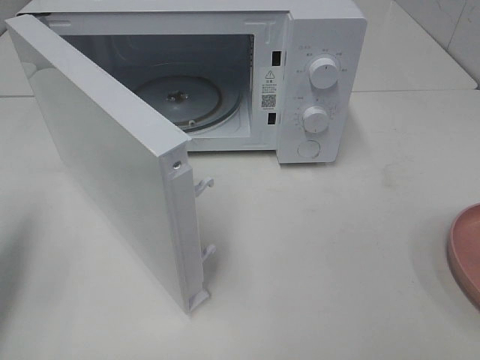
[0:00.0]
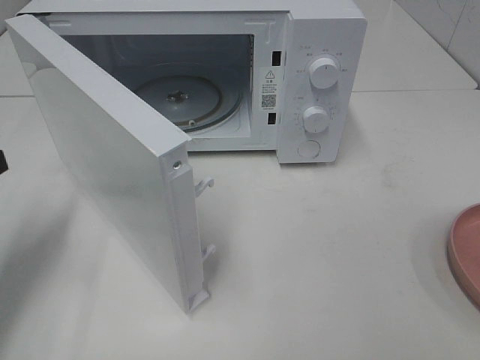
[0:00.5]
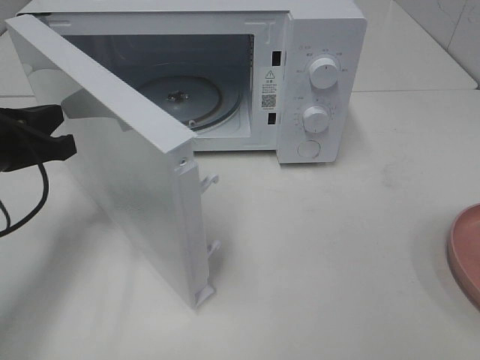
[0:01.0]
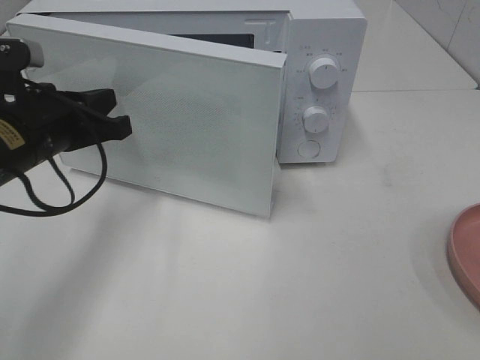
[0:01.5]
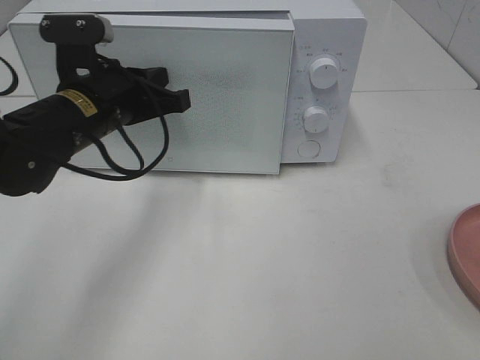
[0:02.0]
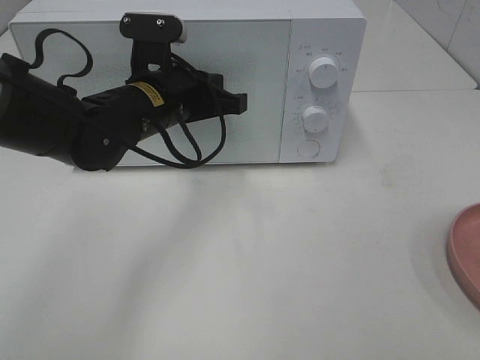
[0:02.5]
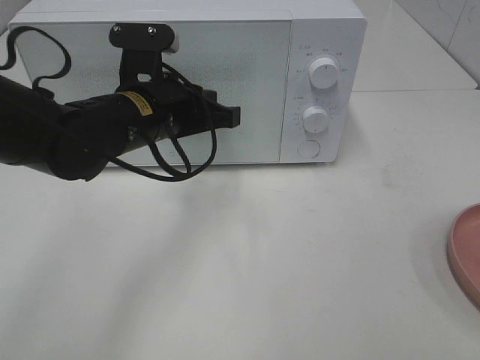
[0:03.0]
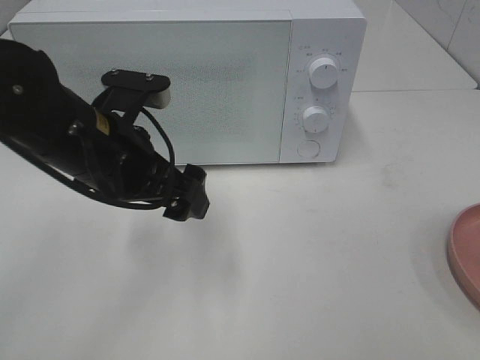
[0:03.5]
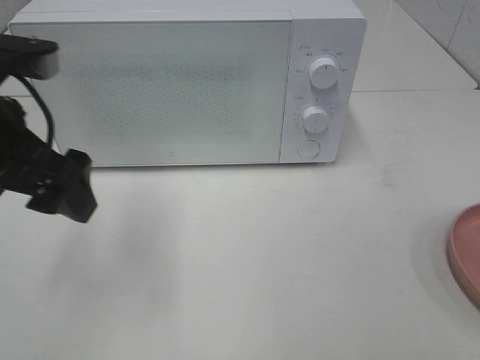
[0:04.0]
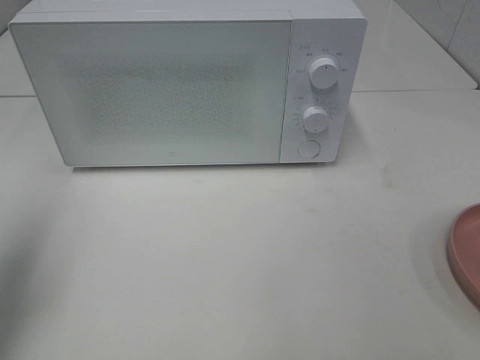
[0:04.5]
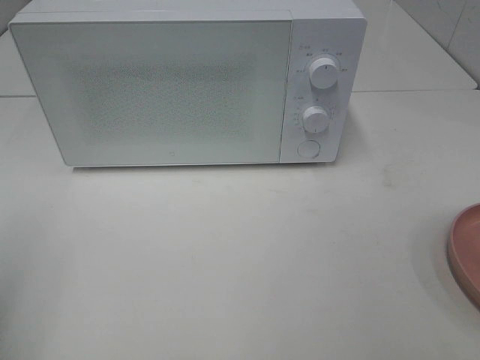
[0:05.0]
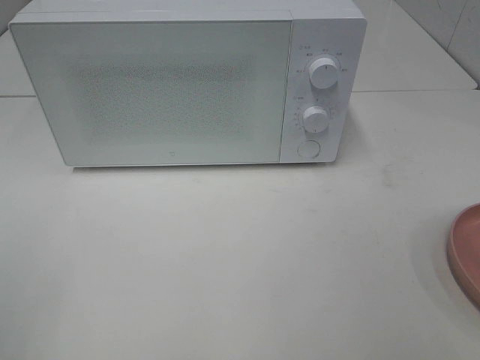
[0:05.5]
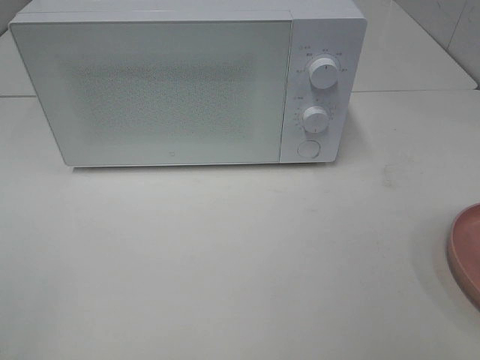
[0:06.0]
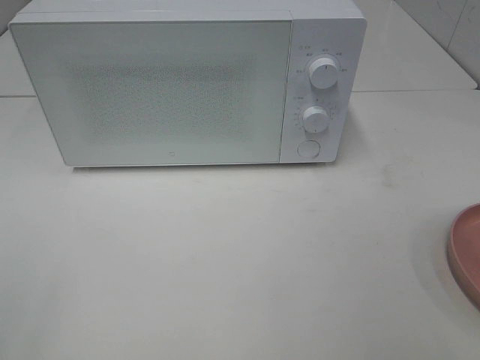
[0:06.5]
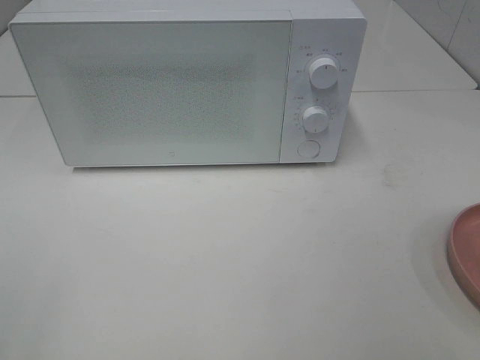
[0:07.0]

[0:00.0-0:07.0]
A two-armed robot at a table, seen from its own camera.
Task of the whole recording: Heat the burger.
Step, 0.0 to 2.5 s: Left hand: close the microwave door.
0.0 to 2.0 s: The left gripper travels to the right and forward by about 25 cm.
2.0 to 3.5 s: The left gripper is displaced backward by approximately 5 cm, and opens up.
3.5 to 5.0 s: The left gripper is displaced to the left and backward by some 25 cm.

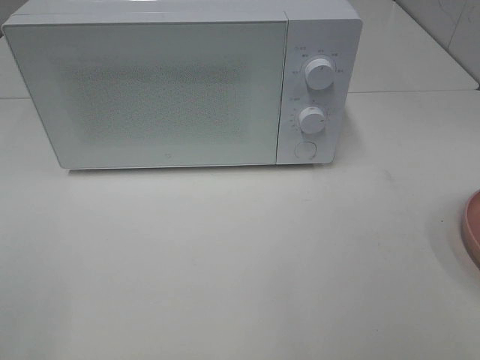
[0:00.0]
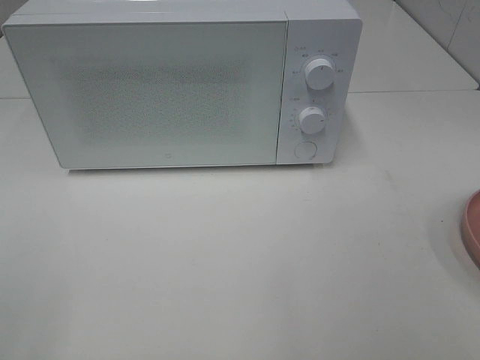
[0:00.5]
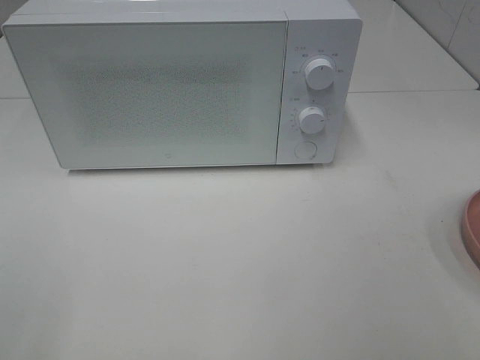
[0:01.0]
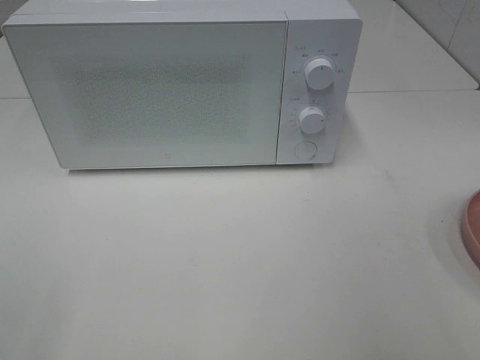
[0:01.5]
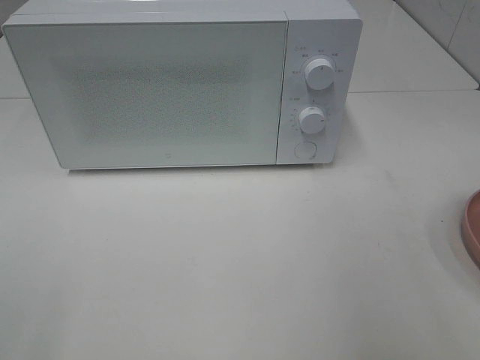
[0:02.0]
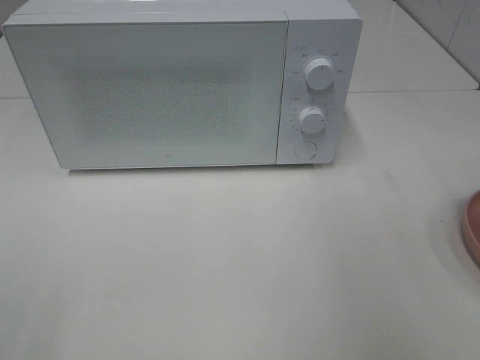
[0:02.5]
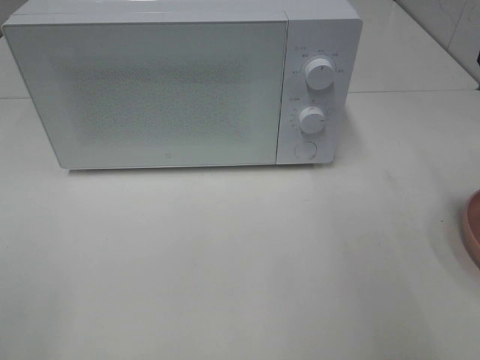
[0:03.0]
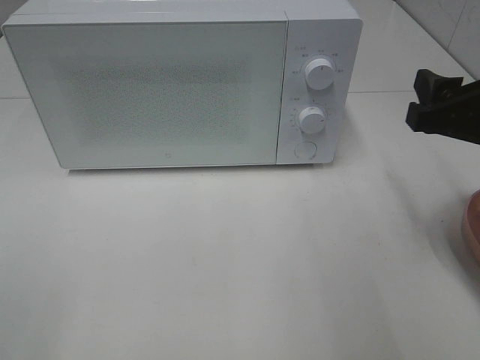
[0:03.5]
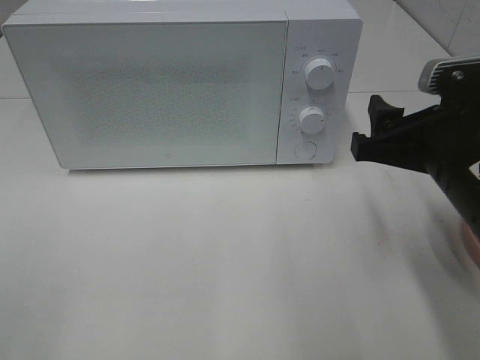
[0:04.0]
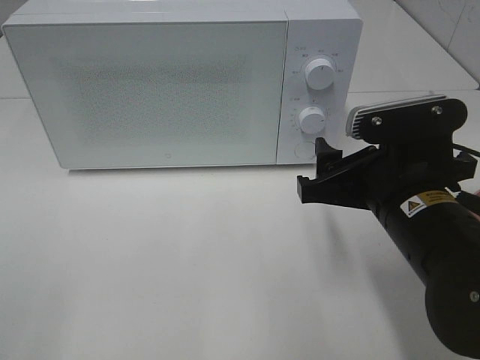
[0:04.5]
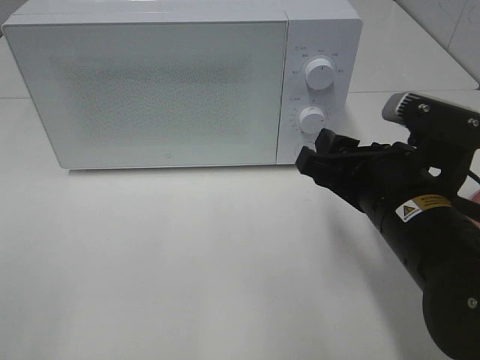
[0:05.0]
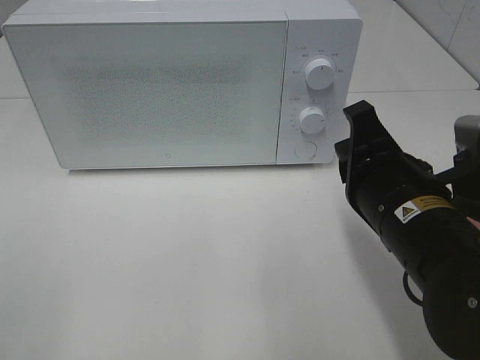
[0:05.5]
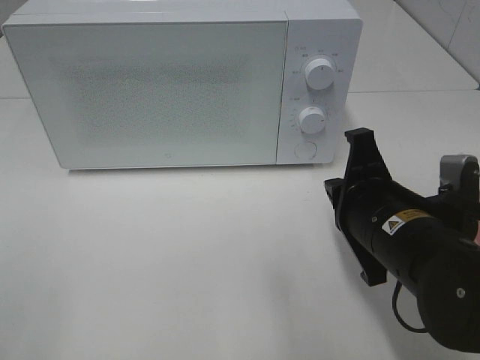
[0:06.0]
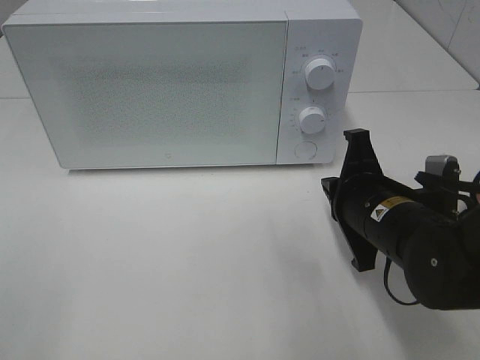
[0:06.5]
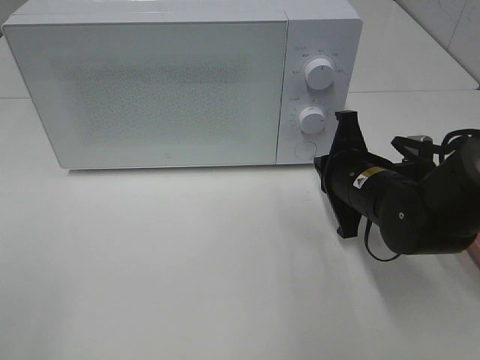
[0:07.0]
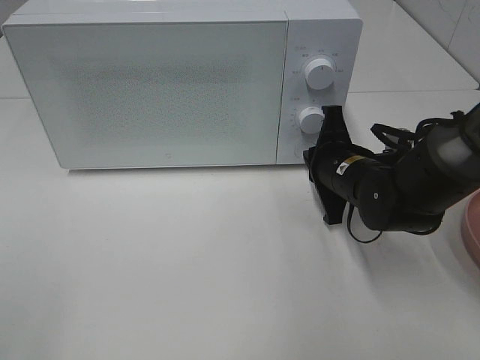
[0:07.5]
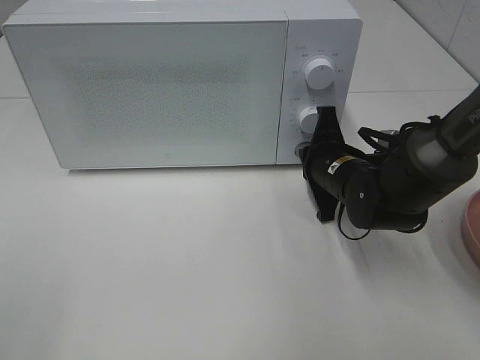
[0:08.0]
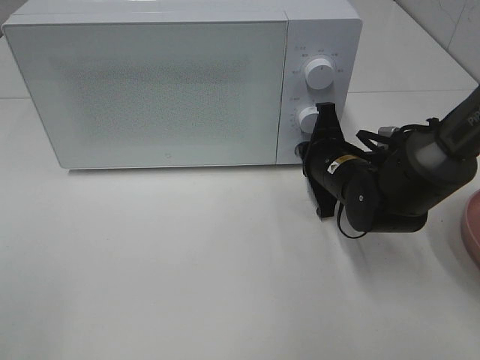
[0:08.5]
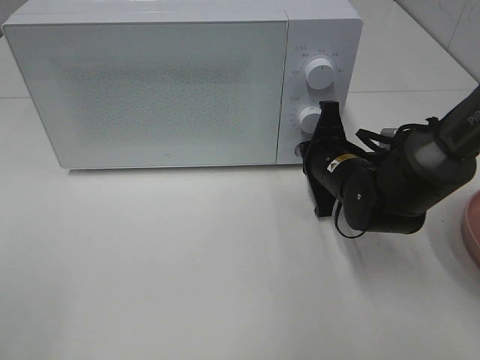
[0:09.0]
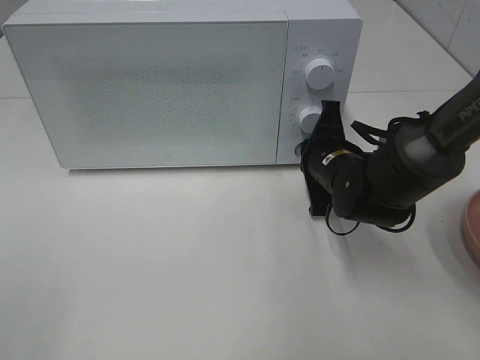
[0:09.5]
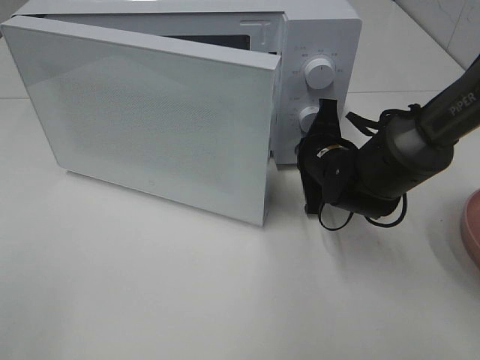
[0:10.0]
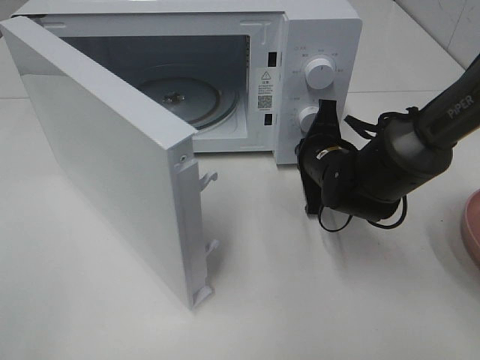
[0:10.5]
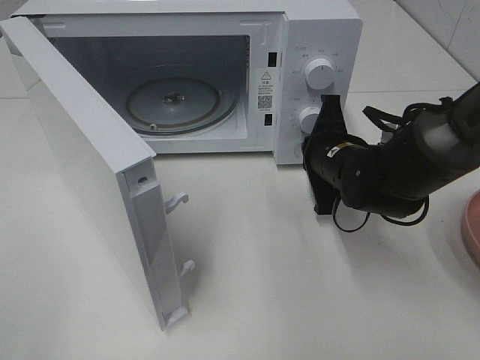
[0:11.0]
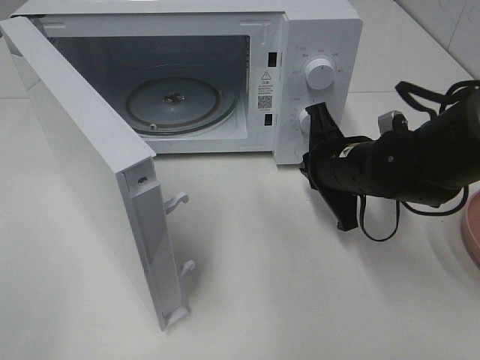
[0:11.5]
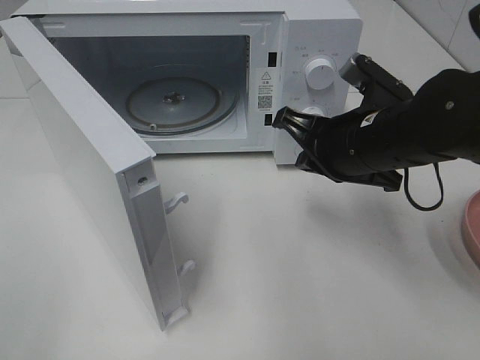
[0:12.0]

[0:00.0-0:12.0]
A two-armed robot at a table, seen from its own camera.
Task of the whole recording: Heat the burger.
Step, 0.0 to 11.0 s: Right hand: press the switch.
2.0 to 4.0 s: The right gripper is displaced downward, to the left and forward by about 15 cm.
4.0 to 6.0 s: The right gripper moves downward, some 5 cm, and closes its fingers.
6.0 to 8.0 s: The right gripper travels forward and downward by roughly 15 cm.
8.0 to 10.0 s: There are only small adjustments of the grippers.
10.0 to 12.0 s: The right gripper moves upward and backward, about 10 cm.

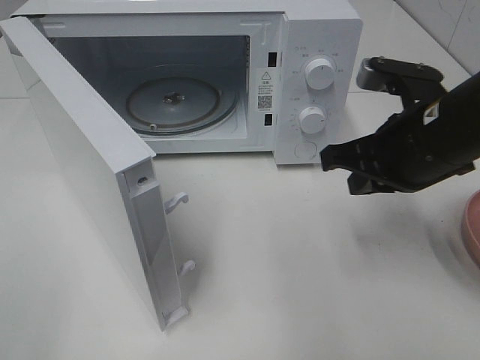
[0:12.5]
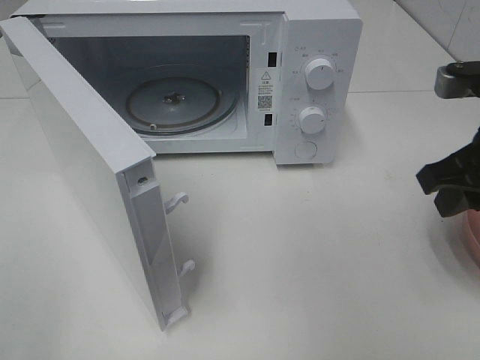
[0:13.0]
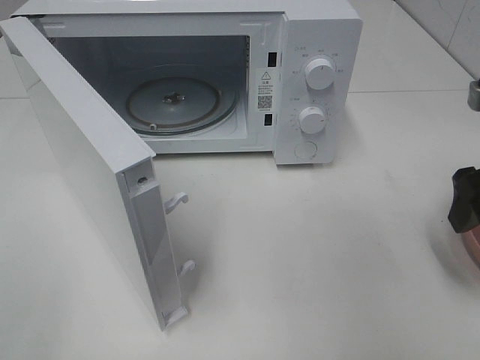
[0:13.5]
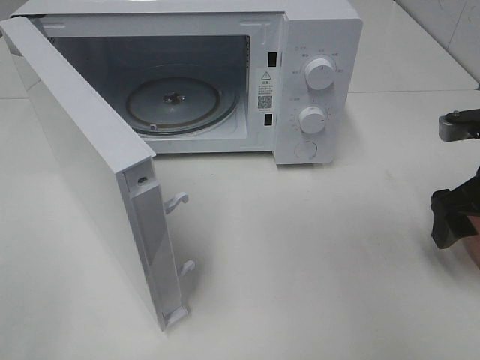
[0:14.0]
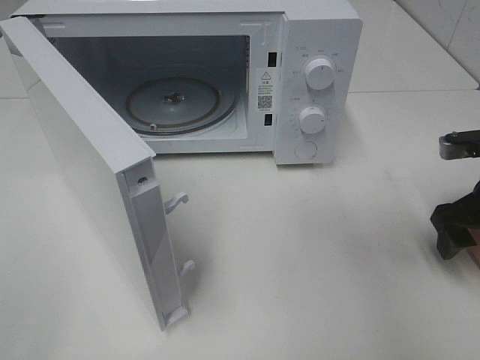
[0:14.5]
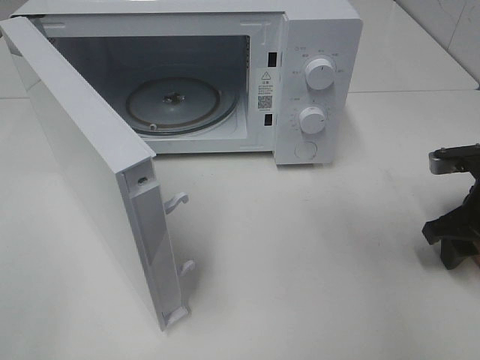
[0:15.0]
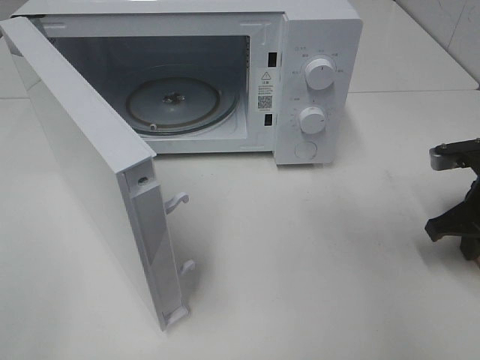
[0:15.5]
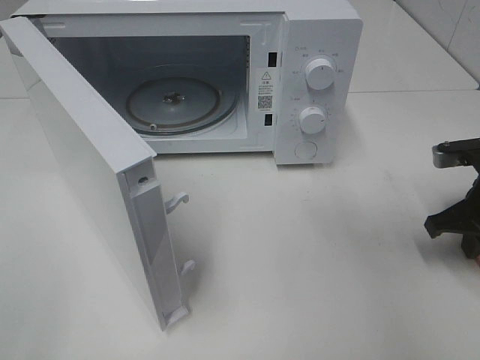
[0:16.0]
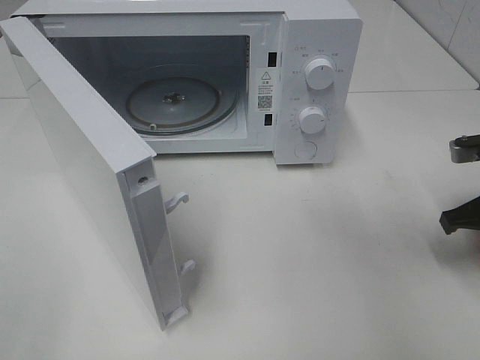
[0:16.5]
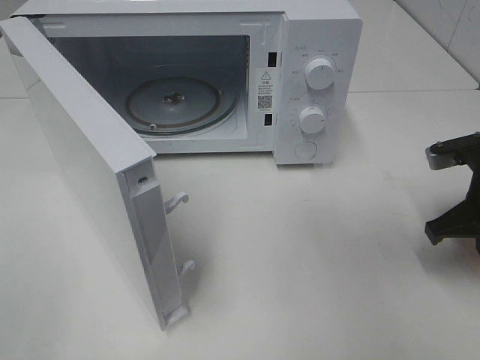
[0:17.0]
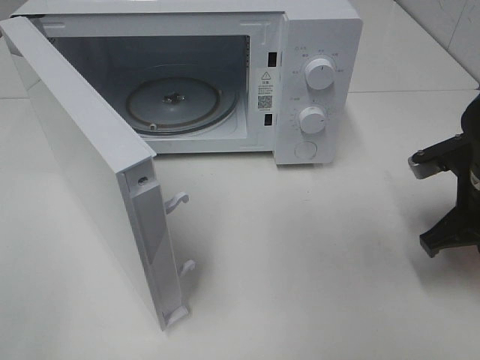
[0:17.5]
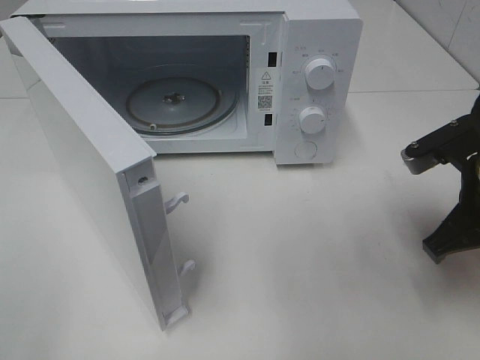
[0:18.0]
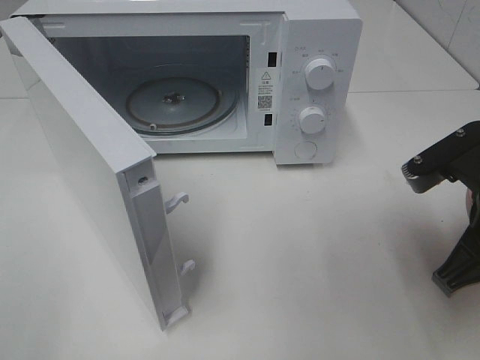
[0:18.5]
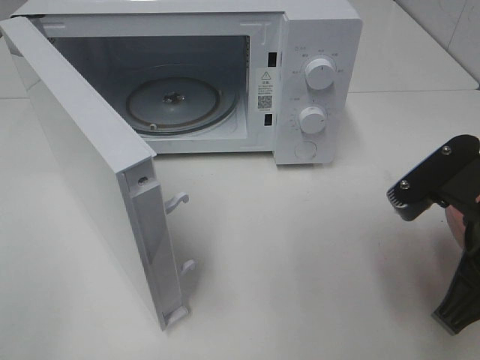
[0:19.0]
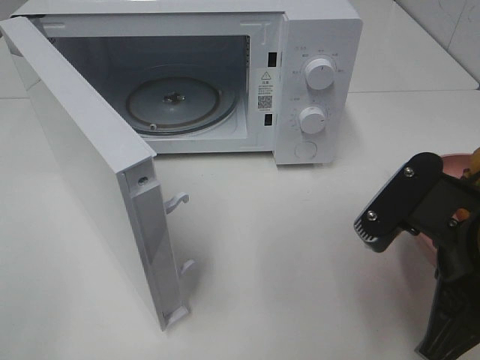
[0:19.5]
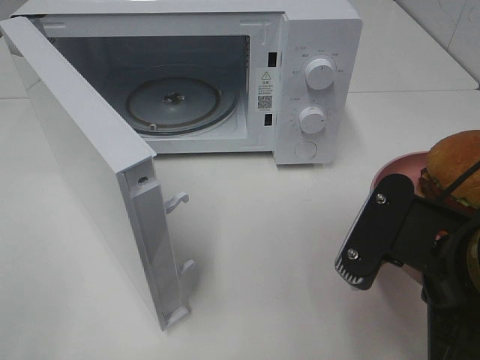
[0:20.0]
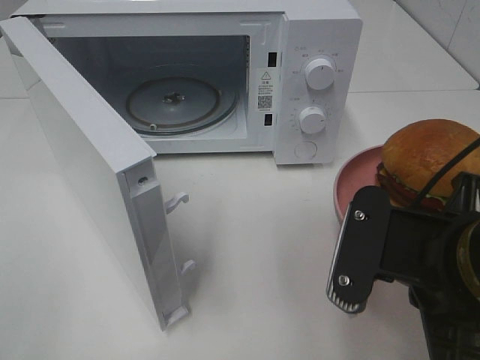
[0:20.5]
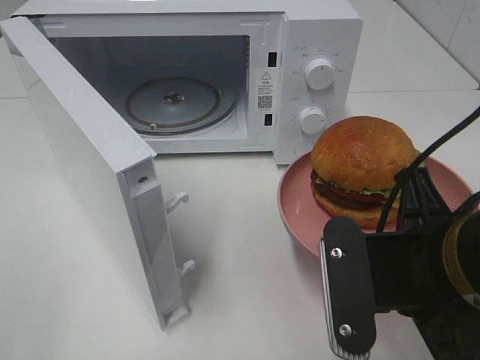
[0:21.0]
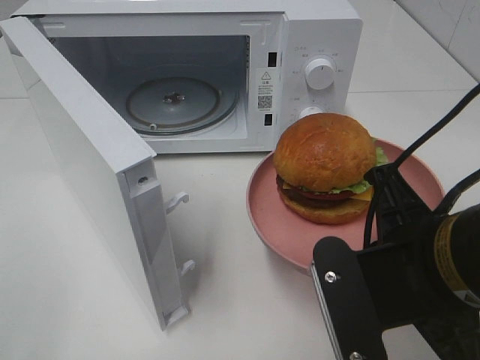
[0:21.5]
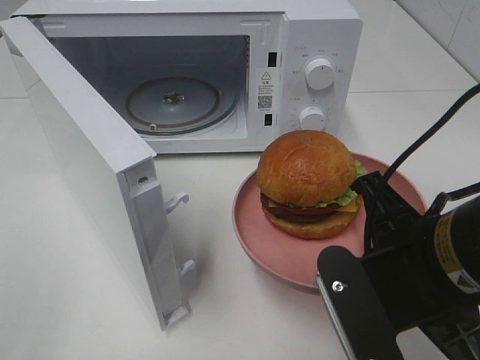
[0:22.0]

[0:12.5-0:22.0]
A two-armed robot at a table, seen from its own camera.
Task of the whole recording: Heat the burger.
Step, 12.5 to 16.5 s: Right hand: grab the plate with the hamburger.
12.5 to 14.5 s: The right gripper moves to the right and downward, approximately 15 cm, and opens up.
14.5 to 16.5 s: The right gripper closes.
16.5 to 18.0 s: The right gripper is displaced to the left by some 10 cm.
18.0 to 20.0 s: The right gripper heads backward and to the left, covering roughly 15 cm.
